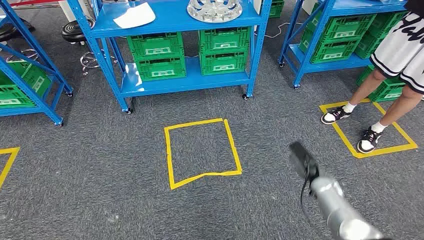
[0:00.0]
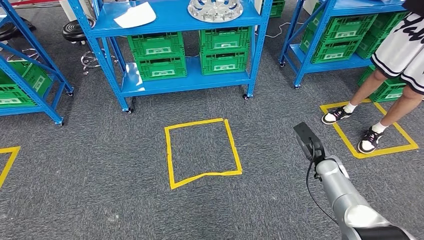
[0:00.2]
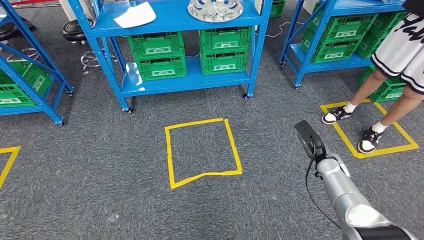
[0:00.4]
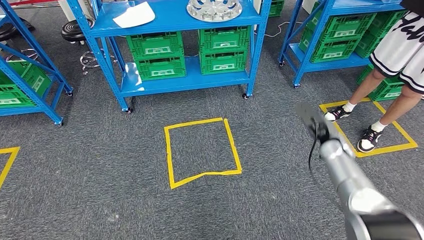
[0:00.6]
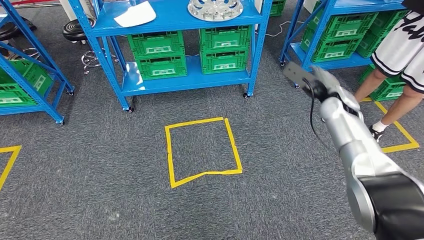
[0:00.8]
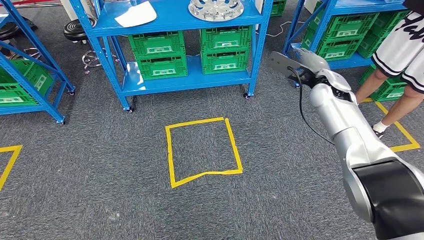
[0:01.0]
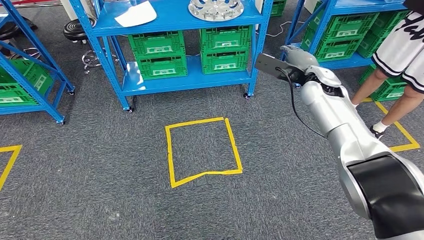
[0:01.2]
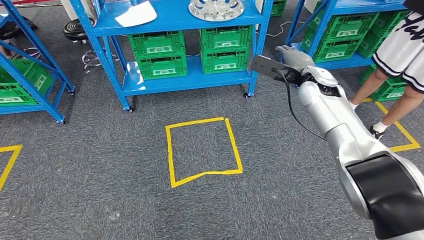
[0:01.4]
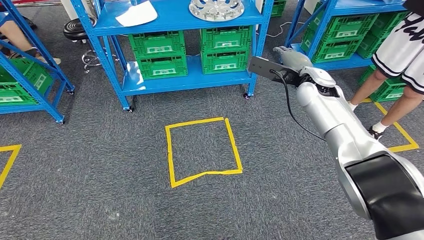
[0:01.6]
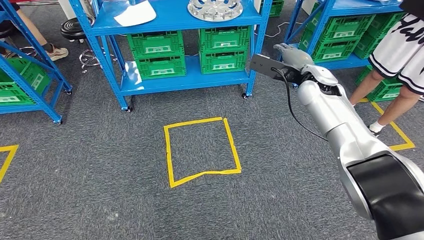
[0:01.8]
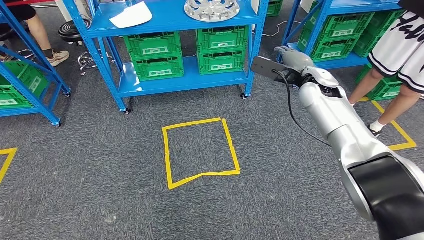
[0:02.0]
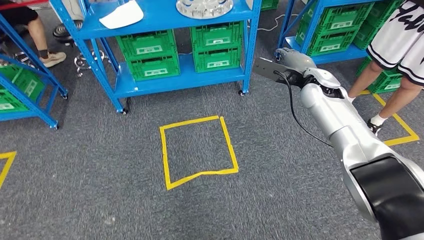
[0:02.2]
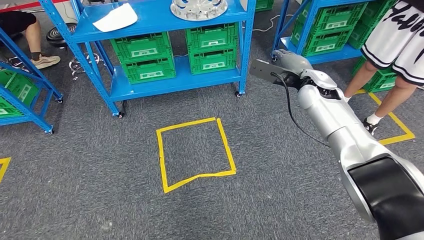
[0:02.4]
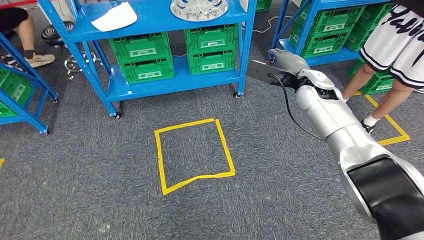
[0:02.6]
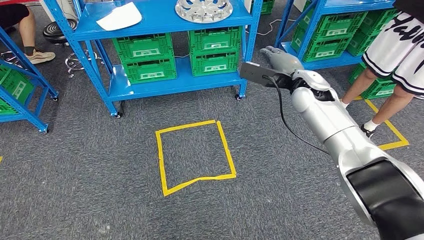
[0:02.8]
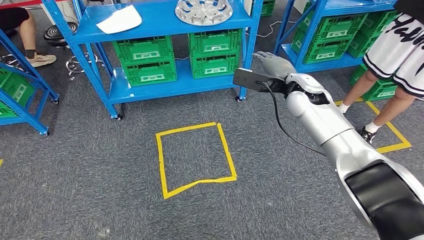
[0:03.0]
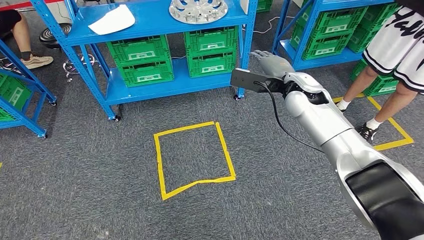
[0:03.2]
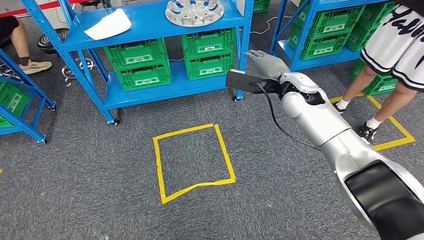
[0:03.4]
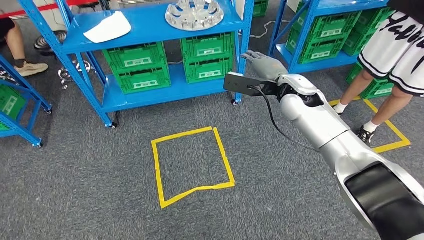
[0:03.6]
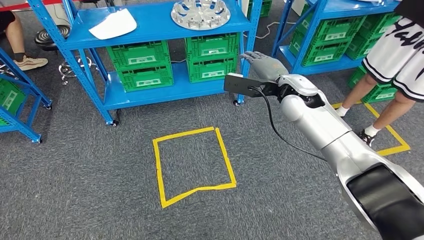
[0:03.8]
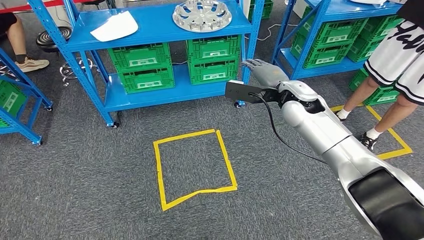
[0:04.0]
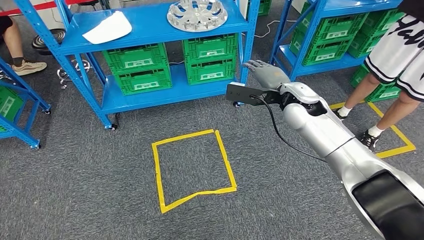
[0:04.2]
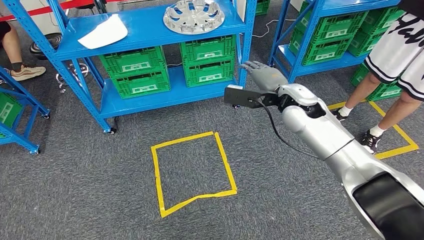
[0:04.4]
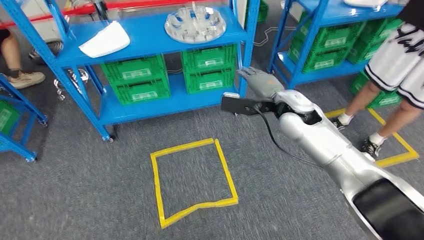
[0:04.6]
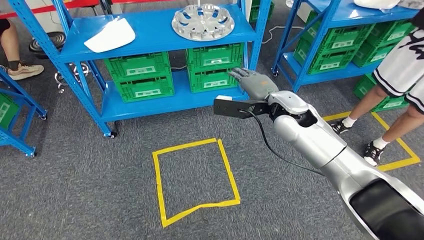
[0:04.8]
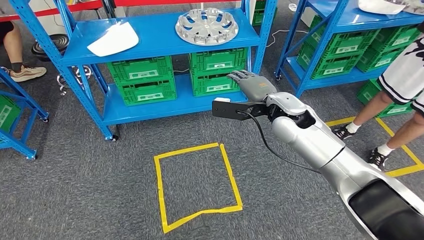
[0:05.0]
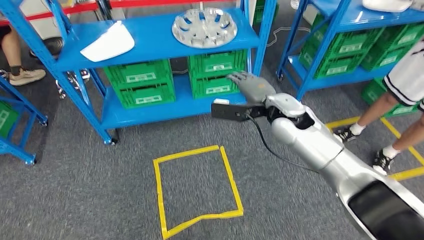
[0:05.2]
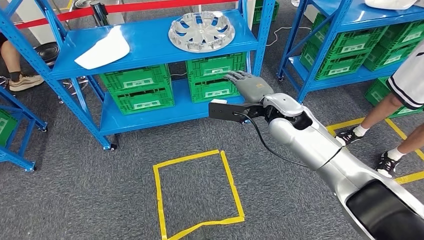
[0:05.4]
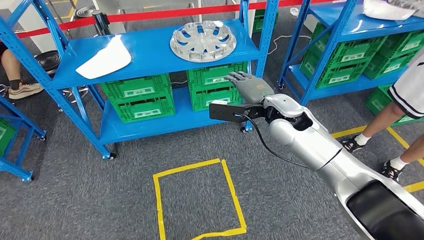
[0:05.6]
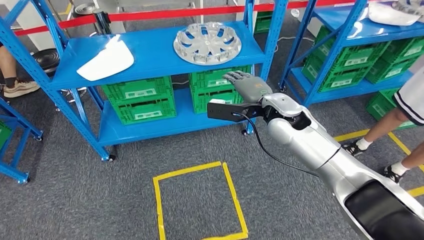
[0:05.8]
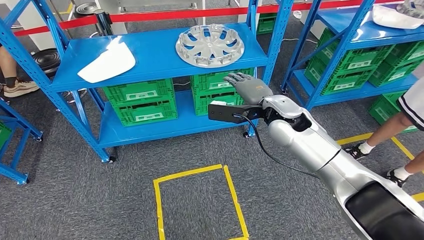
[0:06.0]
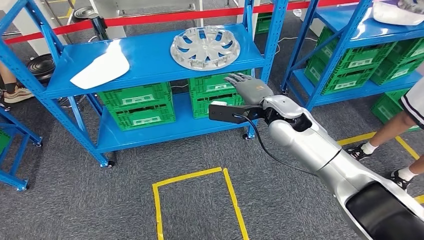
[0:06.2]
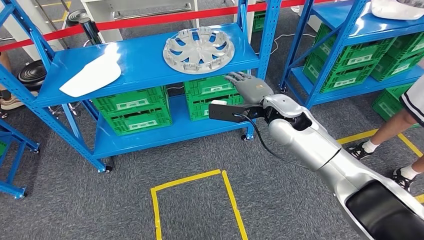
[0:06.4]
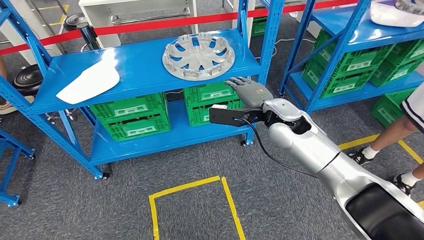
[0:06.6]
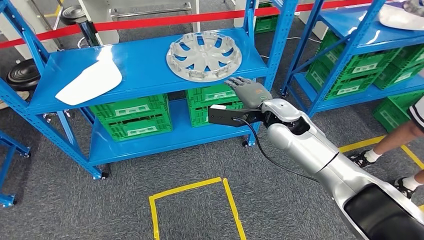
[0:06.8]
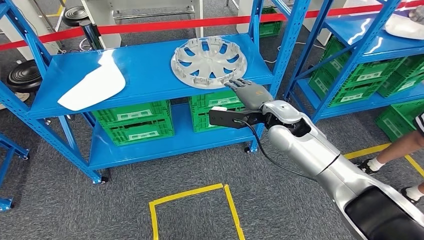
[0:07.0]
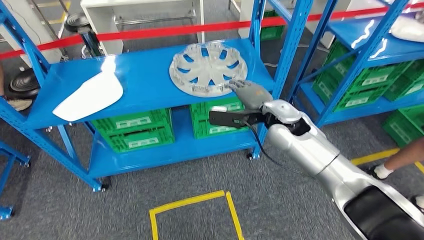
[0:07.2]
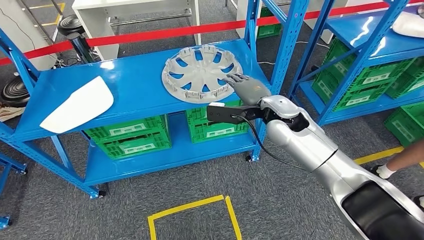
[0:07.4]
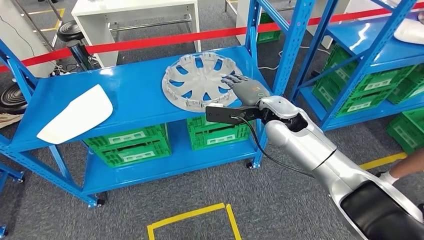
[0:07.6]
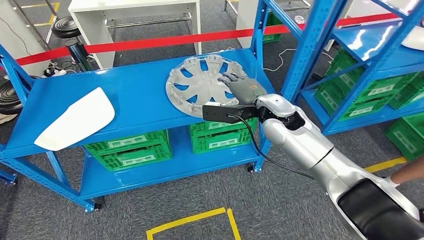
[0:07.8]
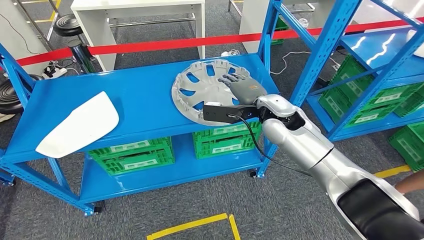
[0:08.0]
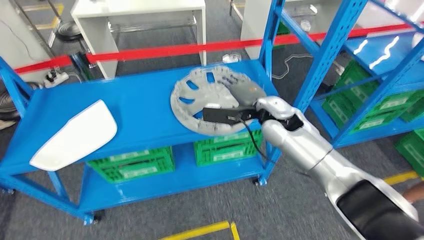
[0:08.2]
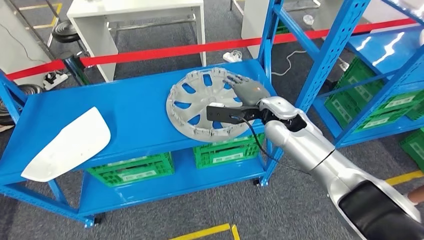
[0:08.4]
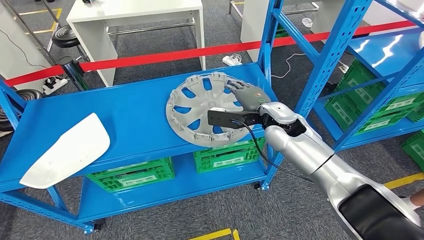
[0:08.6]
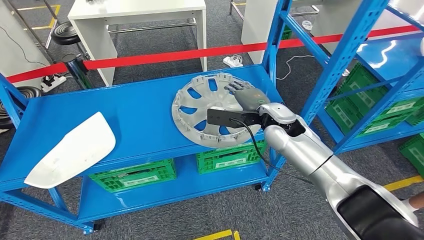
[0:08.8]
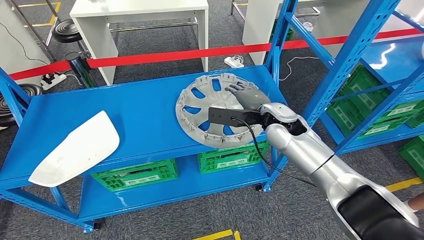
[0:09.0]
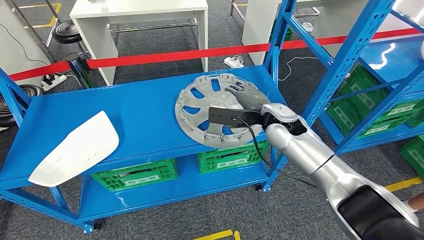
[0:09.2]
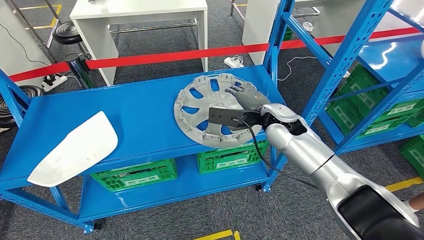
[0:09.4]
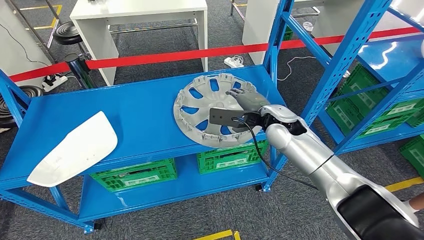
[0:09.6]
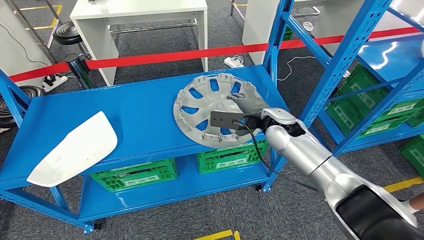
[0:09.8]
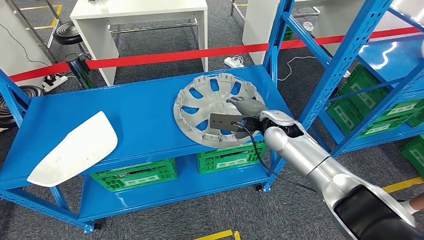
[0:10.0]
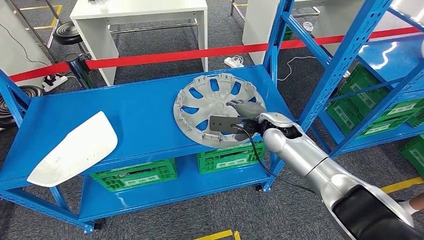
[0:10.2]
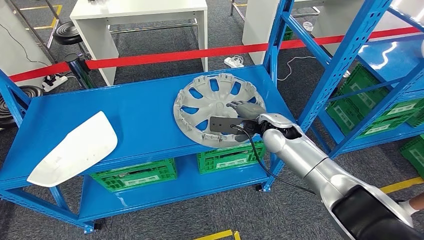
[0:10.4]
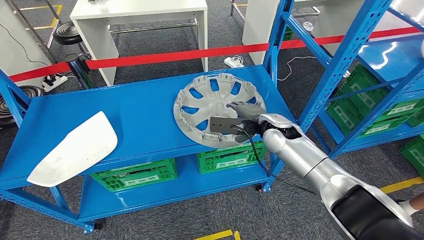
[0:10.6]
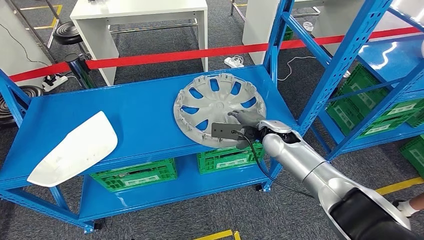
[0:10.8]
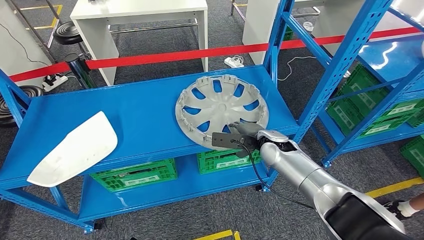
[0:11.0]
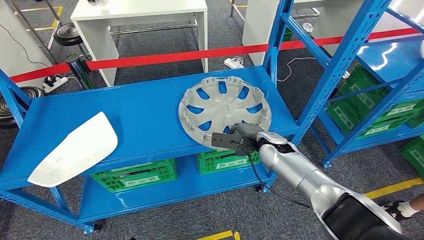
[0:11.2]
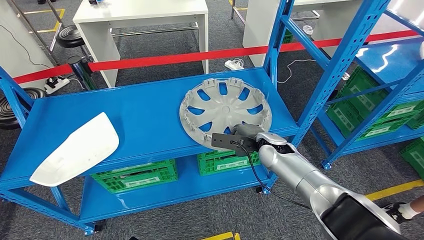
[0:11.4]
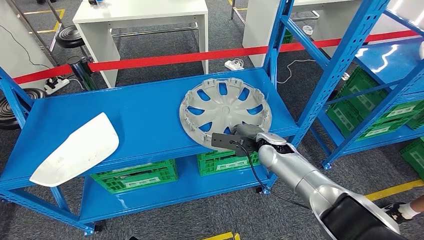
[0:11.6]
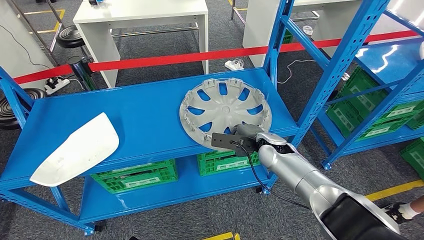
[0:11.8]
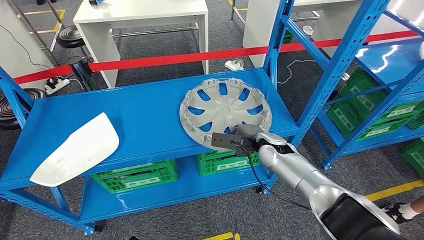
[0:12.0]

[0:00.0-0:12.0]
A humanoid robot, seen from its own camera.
0:09.0 to 0:10.4: The hands move only a little.

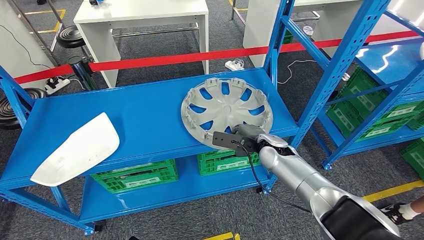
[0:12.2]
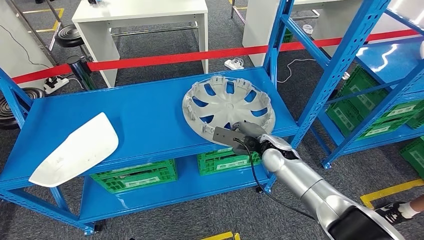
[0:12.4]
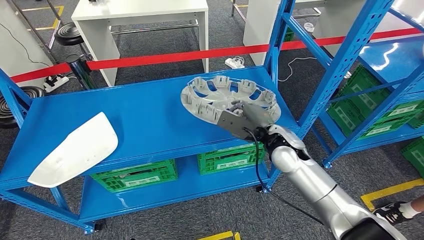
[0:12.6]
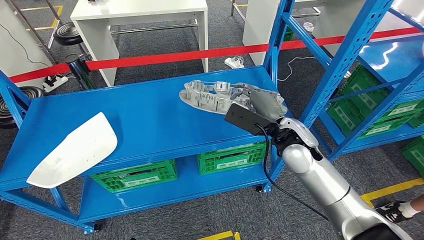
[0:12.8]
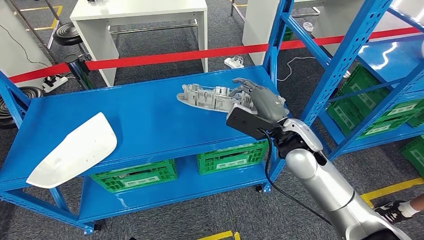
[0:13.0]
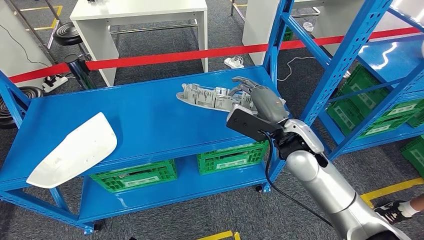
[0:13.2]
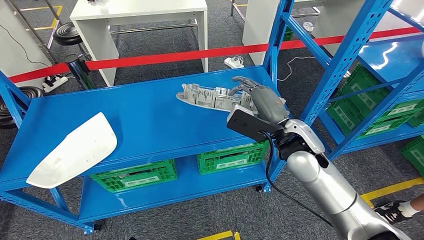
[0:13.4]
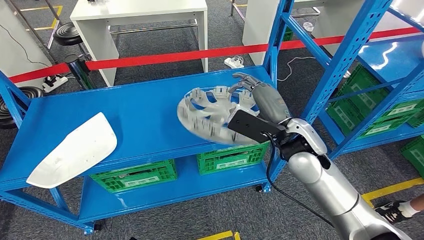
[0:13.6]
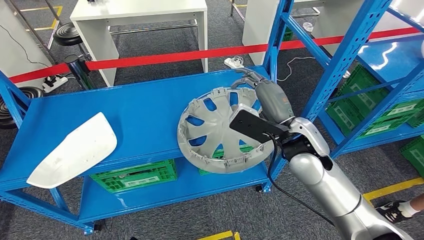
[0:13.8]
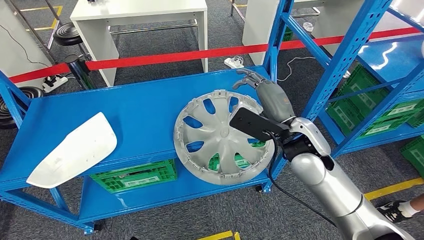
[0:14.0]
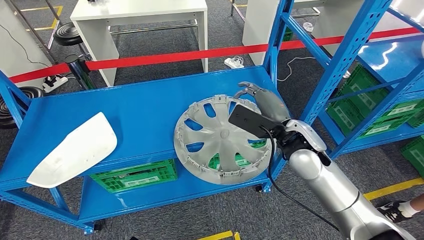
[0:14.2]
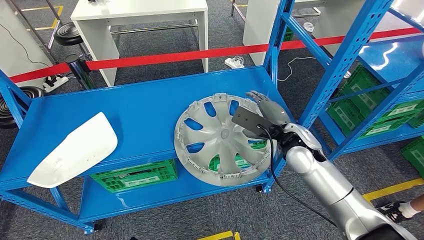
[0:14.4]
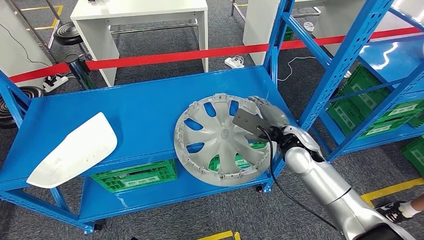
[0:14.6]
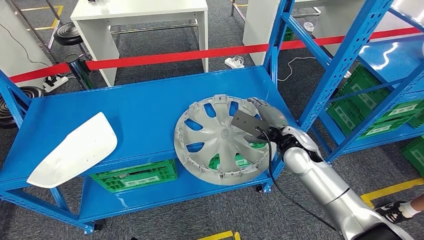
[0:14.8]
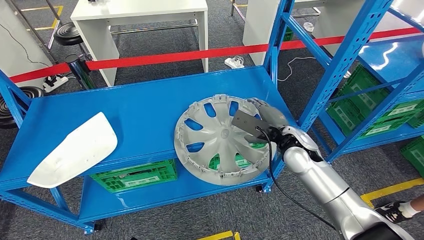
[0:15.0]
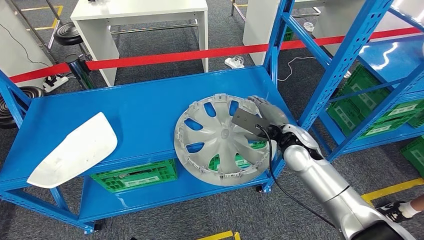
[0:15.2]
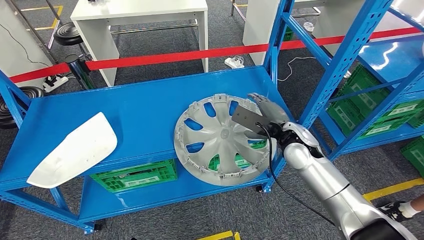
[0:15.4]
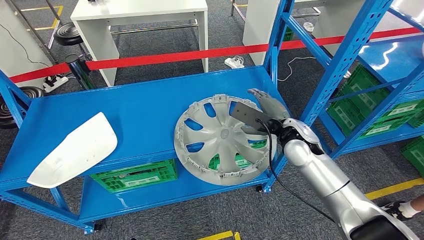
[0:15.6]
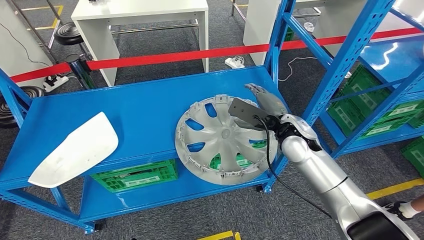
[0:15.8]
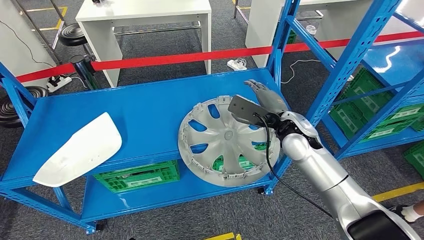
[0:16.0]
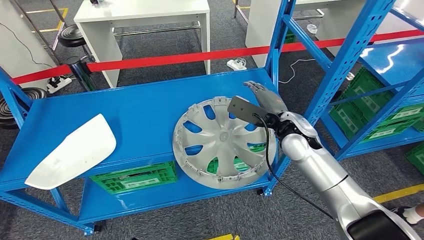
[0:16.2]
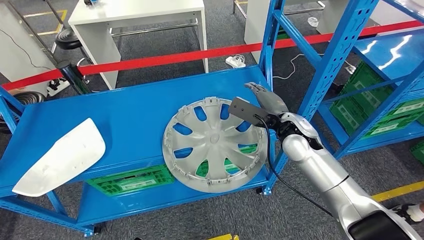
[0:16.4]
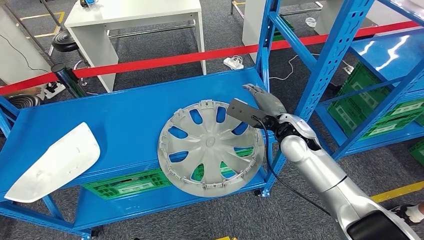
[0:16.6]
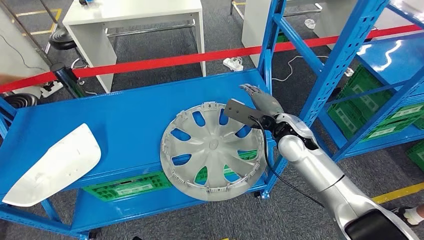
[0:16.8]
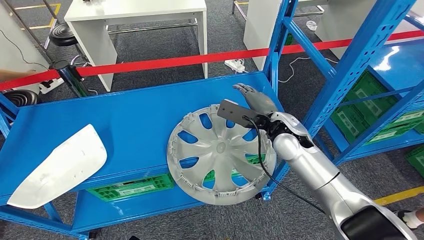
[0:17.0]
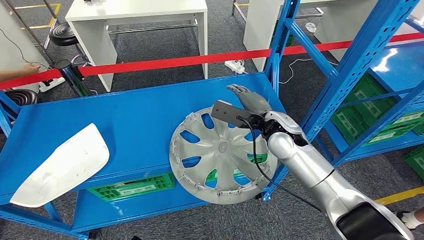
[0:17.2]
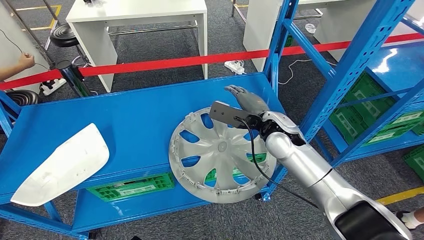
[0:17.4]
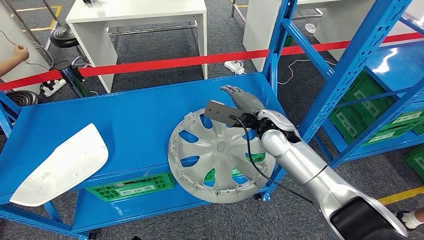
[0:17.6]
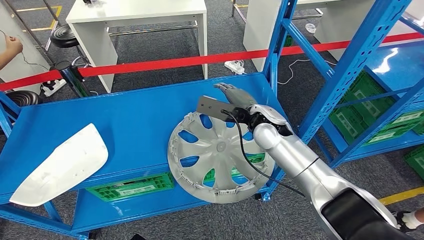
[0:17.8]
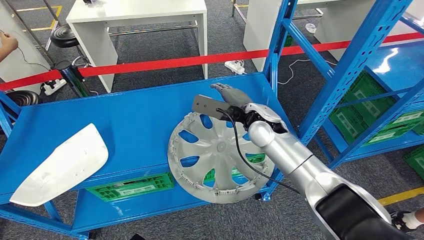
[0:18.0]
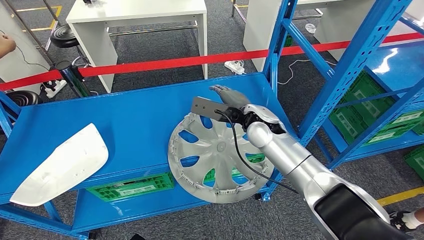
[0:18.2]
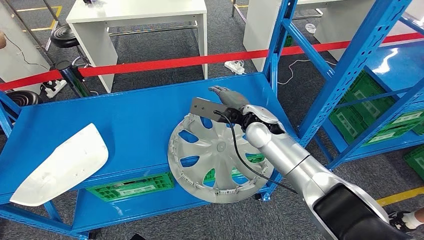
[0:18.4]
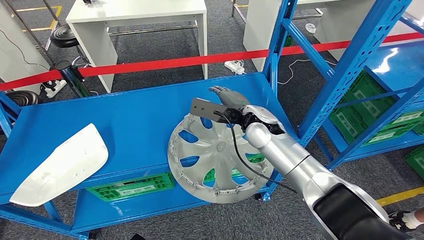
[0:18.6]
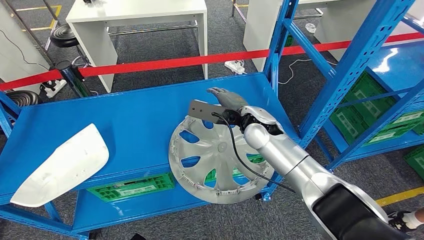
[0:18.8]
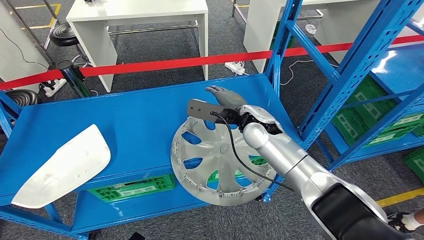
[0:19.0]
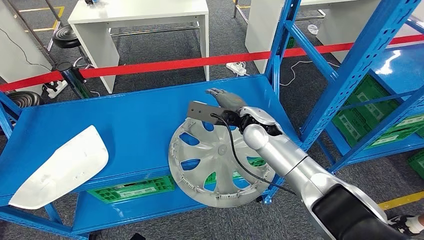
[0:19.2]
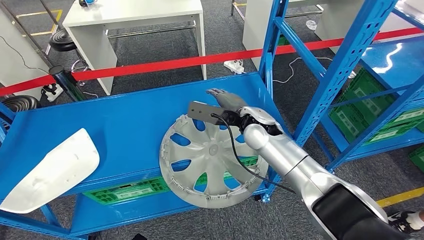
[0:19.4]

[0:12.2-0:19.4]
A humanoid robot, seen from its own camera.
0:13.6 to 0:15.0: The right hand goes some 10 cm downward.
